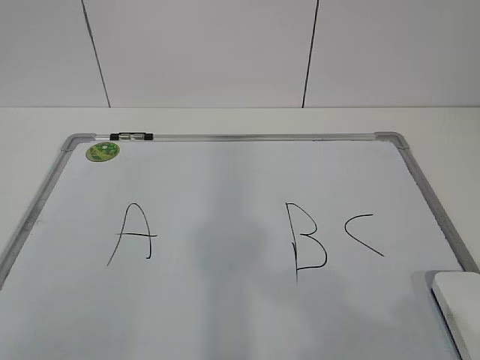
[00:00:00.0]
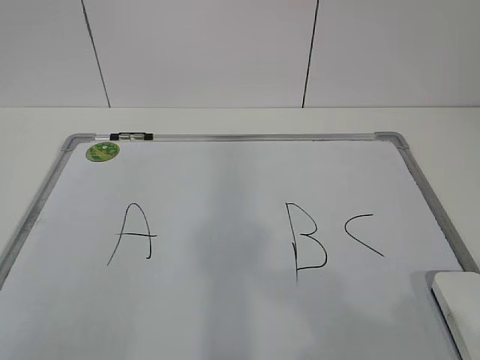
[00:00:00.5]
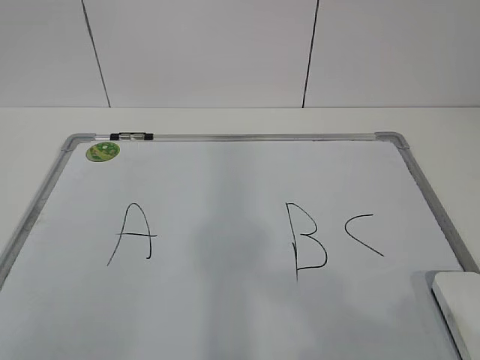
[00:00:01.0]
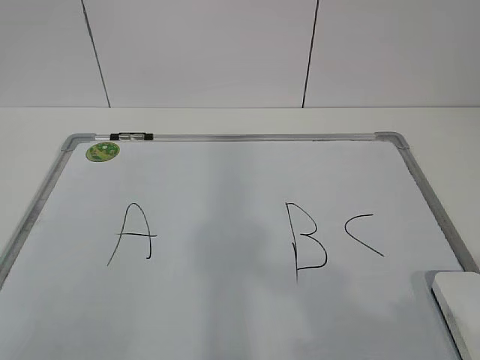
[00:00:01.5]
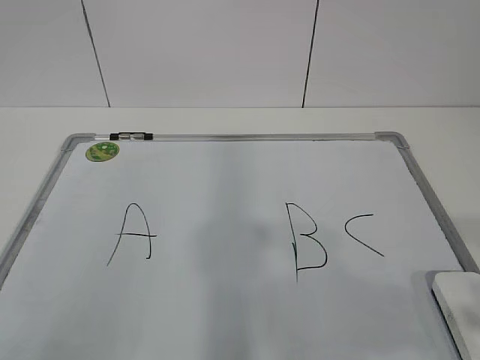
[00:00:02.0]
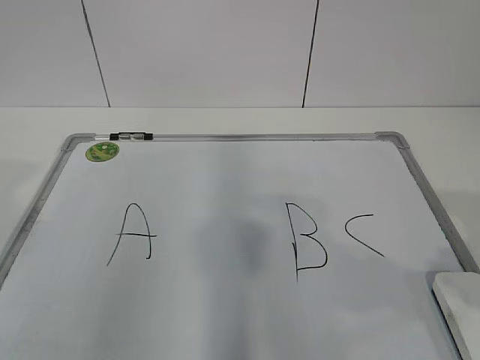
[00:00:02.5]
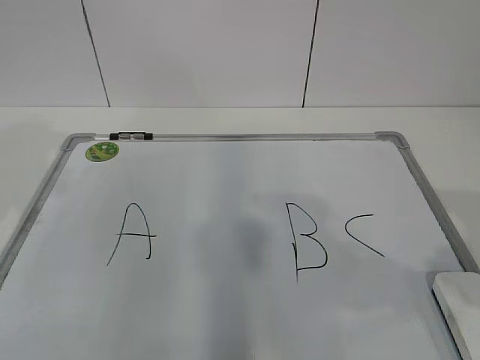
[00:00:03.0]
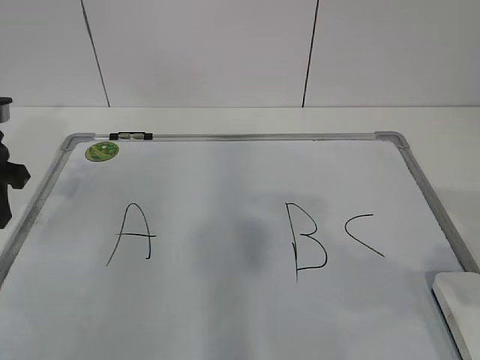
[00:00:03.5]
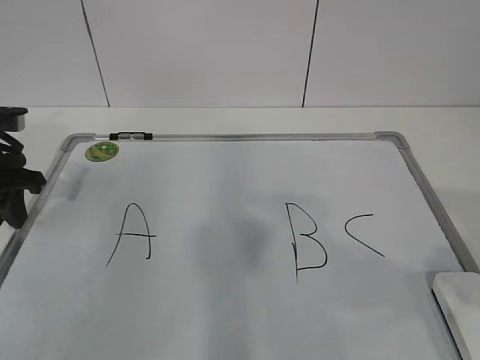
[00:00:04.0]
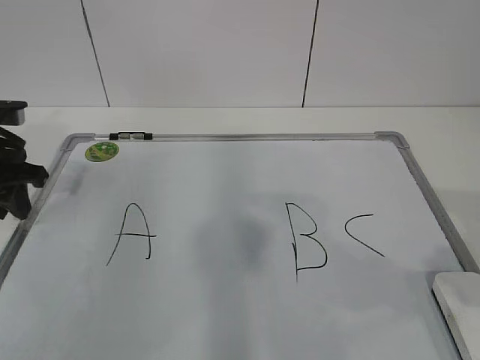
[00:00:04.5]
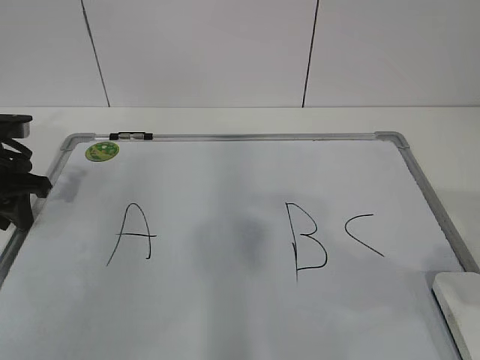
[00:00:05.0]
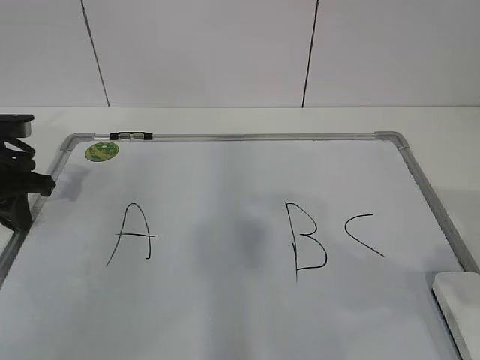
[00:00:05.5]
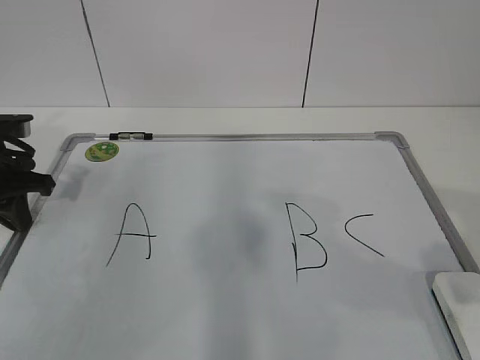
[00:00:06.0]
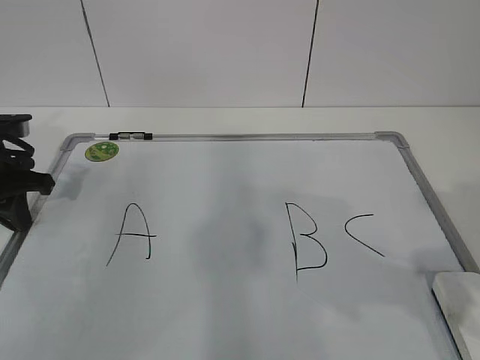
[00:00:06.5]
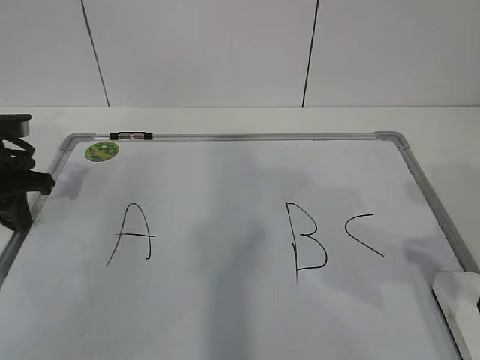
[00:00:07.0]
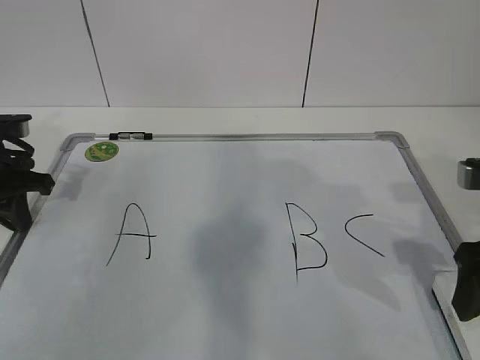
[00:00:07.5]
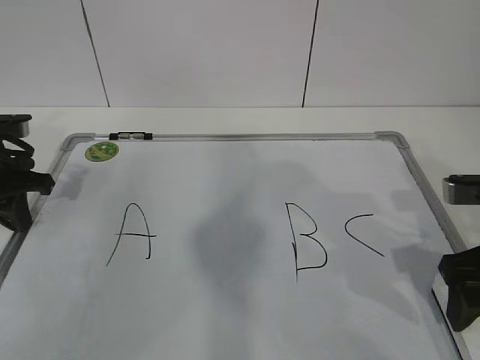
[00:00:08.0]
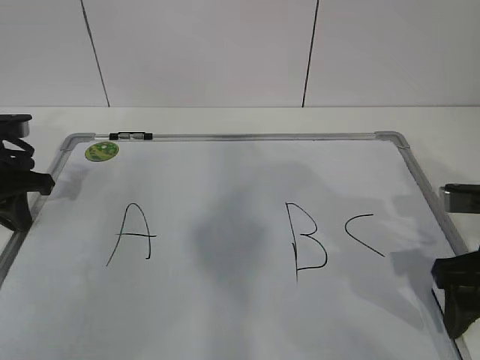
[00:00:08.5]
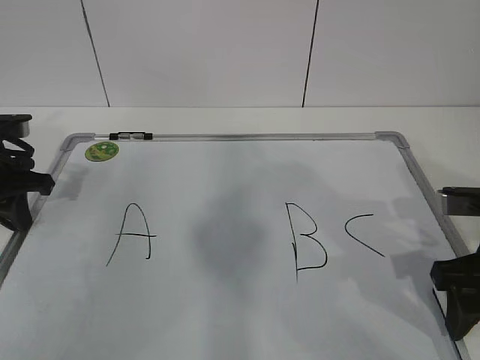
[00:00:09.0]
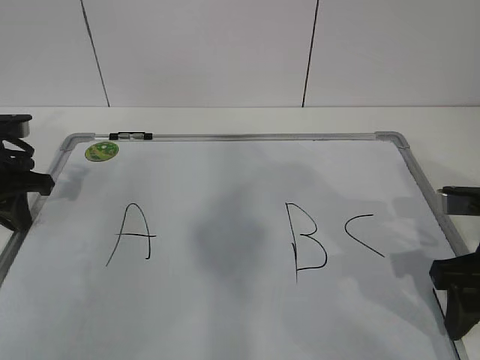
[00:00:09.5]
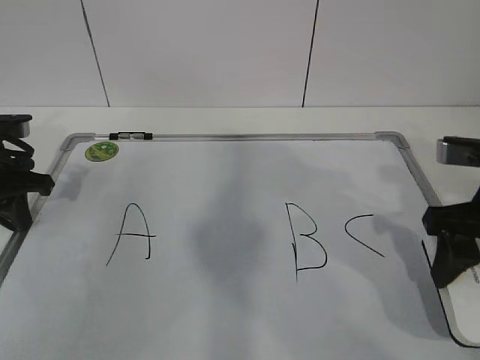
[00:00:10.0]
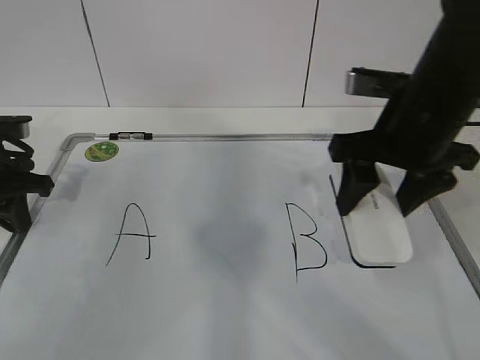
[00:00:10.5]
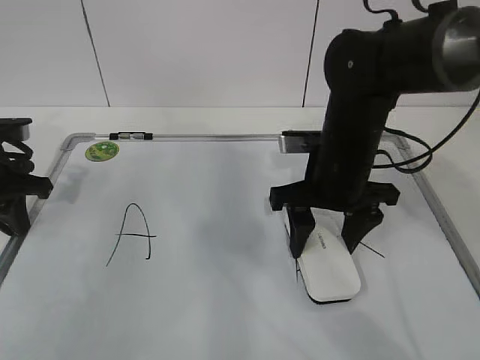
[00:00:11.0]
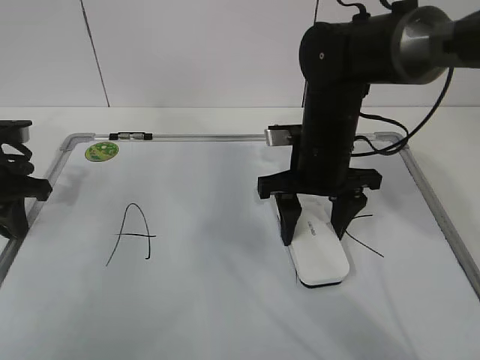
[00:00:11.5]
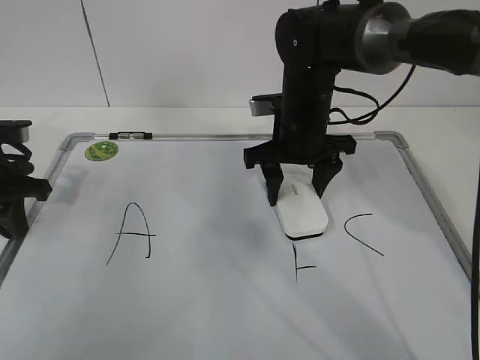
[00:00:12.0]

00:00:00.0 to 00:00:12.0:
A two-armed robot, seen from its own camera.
Task of the whole recording: pick up the eraser on the blackboard and erase the letter "B".
Step, 00:00:00.0 to 00:00:04.0: Hold the drawing board steady with your left hand.
Step, 00:00:04.5 to 00:00:07.5: Grab the eraser with your right hand.
00:00:02.0 to 00:00:04.0: The left gripper goes about 30 cm forward.
00:00:04.0 to 00:00:06.0: The left gripper closes.
00:00:06.0 to 00:00:08.0: The right gripper goes about 15 cm forward and downward, and opens up.
00:00:08.0 to 00:00:10.0: The right gripper closes.
00:00:10.0 to 00:00:12.0: The right gripper is displaced forward and to the left by roughly 20 cm.

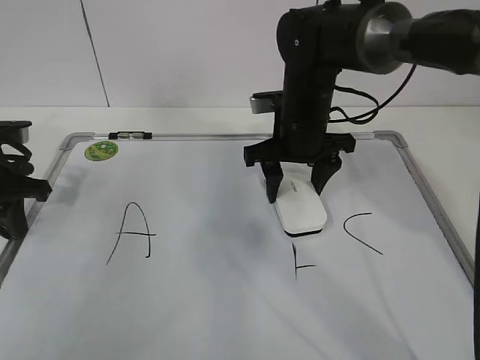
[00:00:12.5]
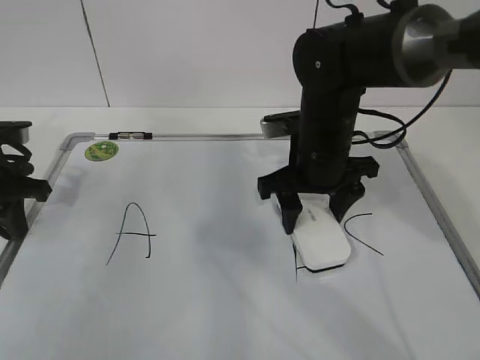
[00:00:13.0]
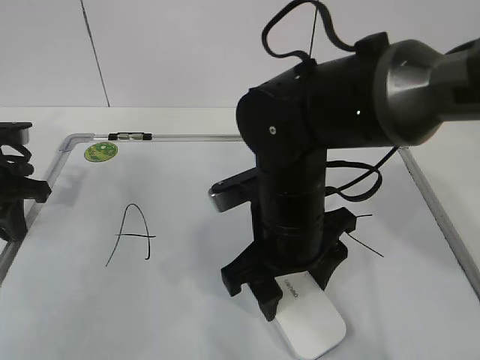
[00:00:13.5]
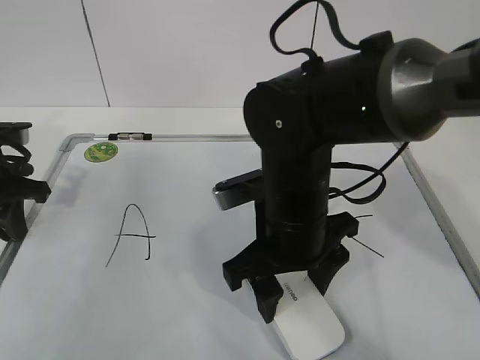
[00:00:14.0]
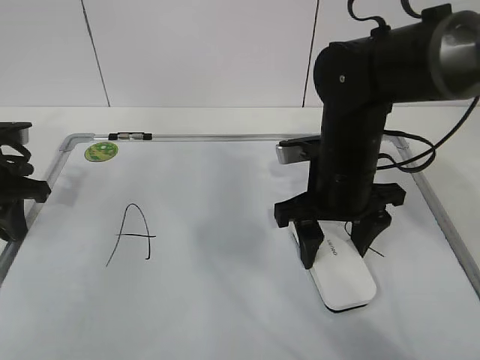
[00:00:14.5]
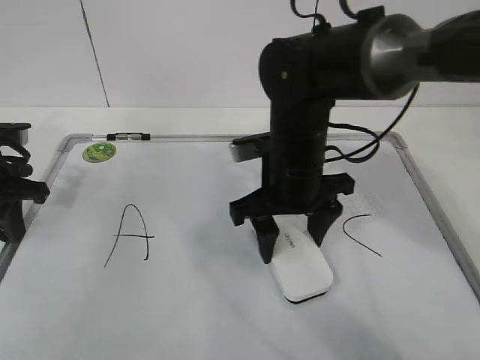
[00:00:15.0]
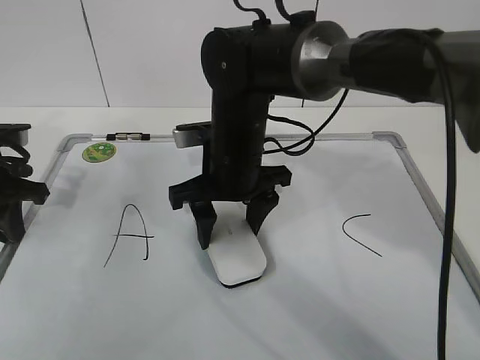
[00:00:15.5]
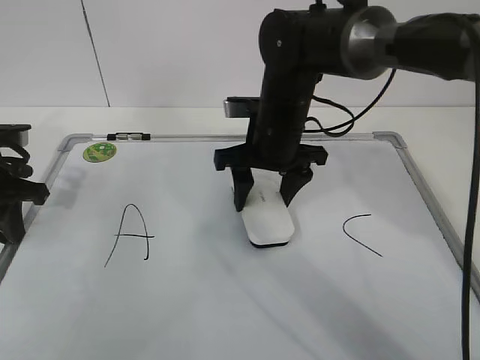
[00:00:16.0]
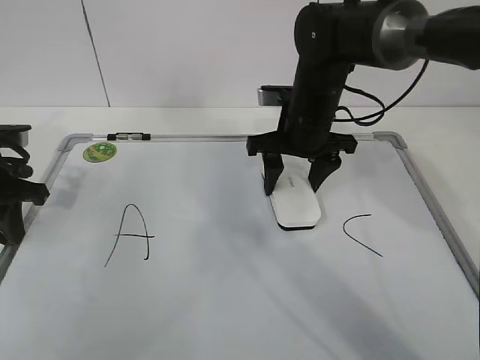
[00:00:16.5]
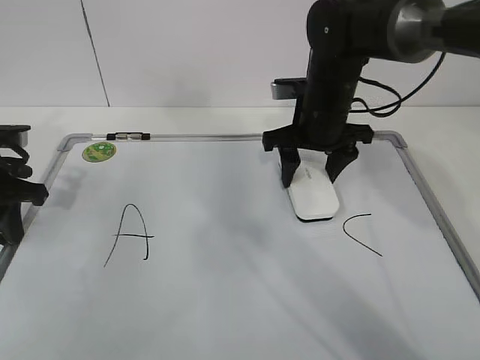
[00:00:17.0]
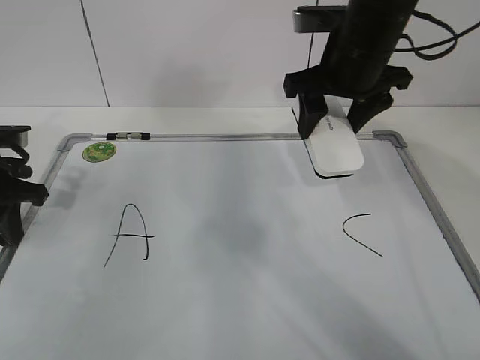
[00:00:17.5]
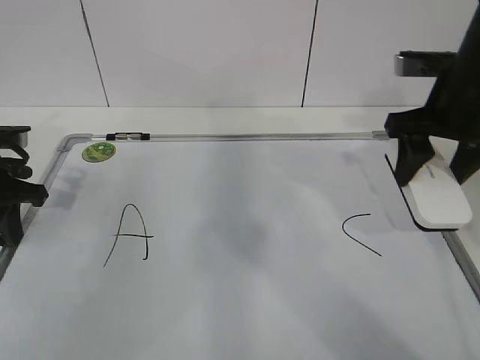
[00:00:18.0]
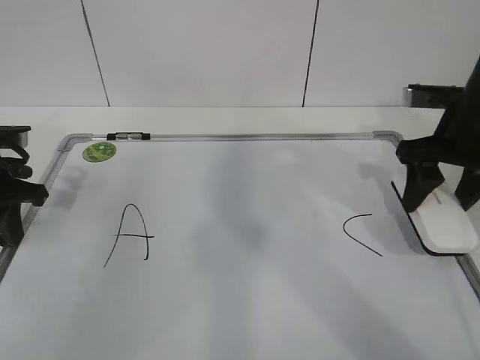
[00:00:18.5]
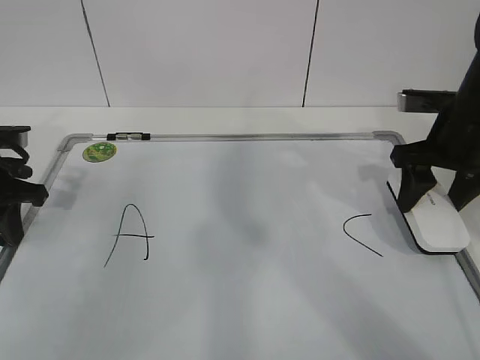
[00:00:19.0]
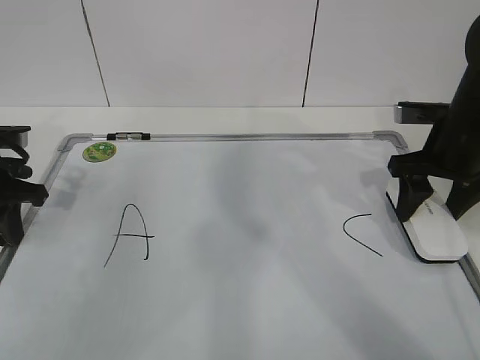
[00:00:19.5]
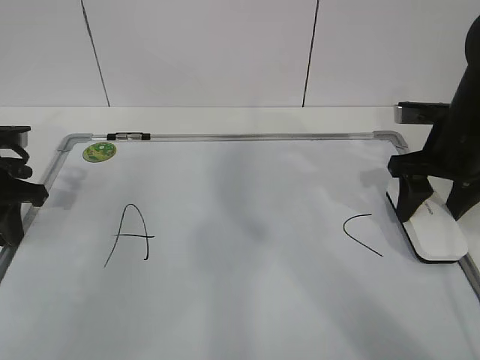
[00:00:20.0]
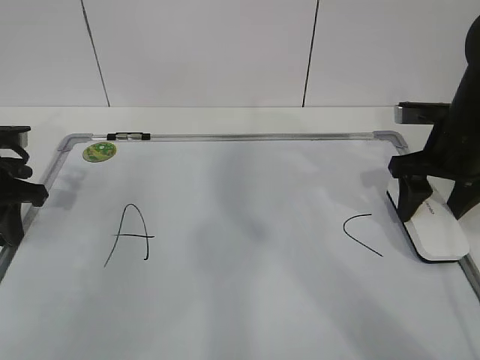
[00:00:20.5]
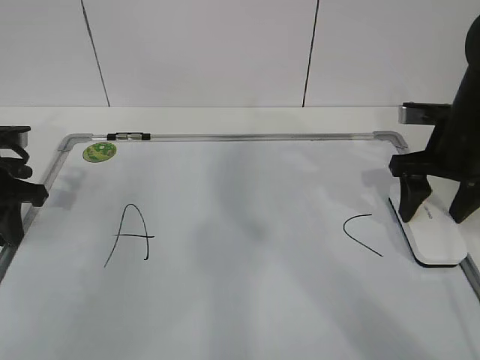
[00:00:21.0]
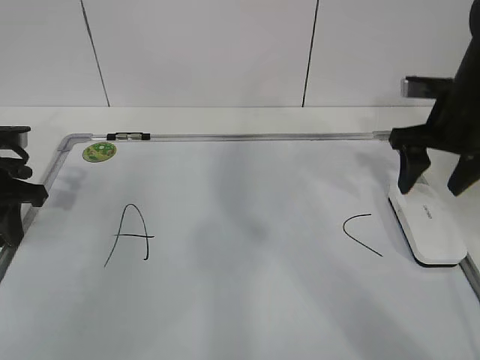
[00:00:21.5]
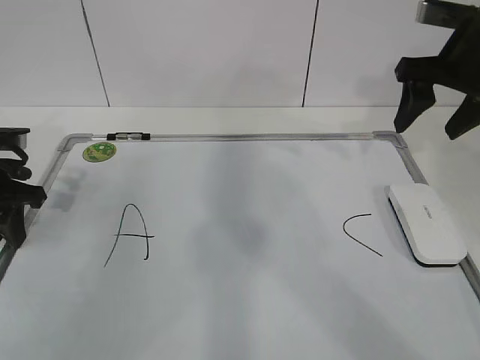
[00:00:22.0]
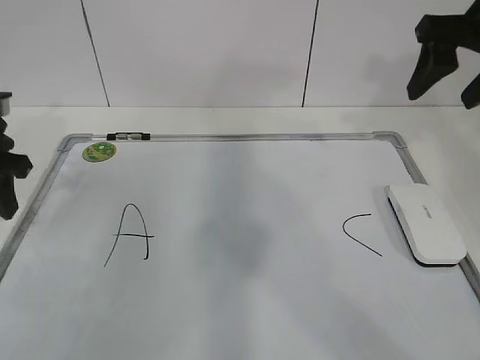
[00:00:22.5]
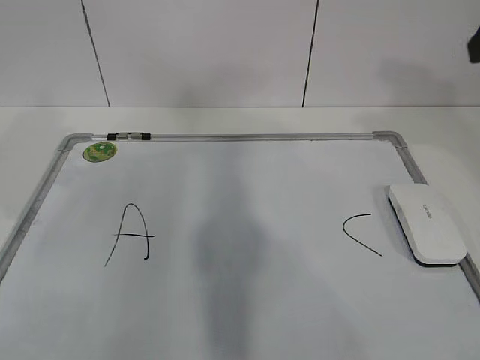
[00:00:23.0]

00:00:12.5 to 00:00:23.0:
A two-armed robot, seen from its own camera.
Task of the whole recording: pick up the eraser on the blackboard and erase the letter "B".
Step, 00:00:14.5 to 00:00:17.0: Put down the eraser with your right hand.
00:00:12.5 to 00:00:14.5: The right gripper travels backward by approximately 10 cm.
00:00:14.5 to 00:00:16.5: The right gripper moves forward, about 10 cm, and travels to the left and back again, roughly 10 cm each way.
00:00:16.5 to 00:00:19.0: The right gripper travels to the right by some 15 cm.
00:00:19.0 to 00:00:21.0: The right gripper opens.
00:00:21.0 to 00:00:23.0: The right gripper shifts roughly 25 cm upward and backward. Meanwhile the left gripper goes some 10 cm upward, and opens and closes again.

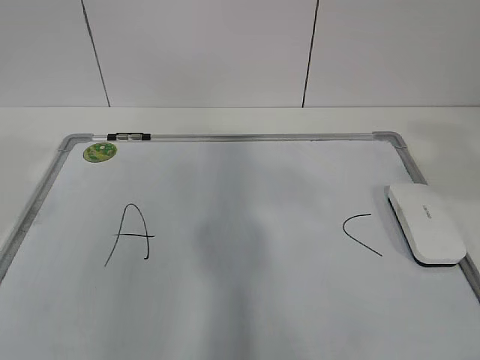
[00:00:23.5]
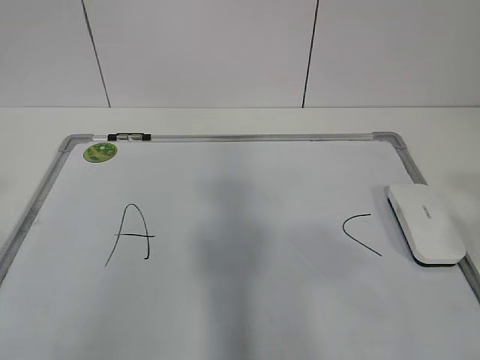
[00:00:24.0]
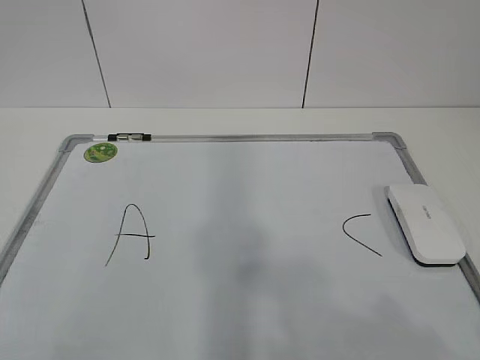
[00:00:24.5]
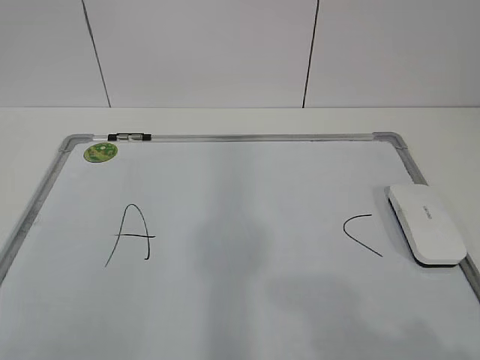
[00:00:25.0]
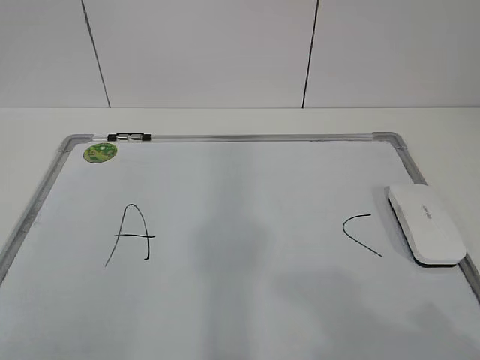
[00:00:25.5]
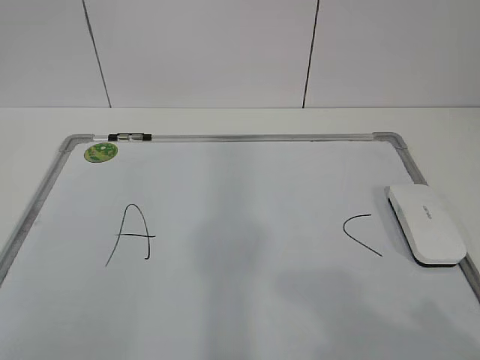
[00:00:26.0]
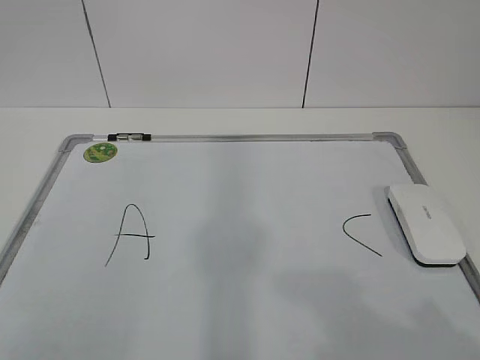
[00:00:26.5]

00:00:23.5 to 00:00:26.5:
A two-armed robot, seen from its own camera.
Task of the whole recording: pick up the eraser on the blackboard and erase the letter "B".
00:00:23.5 to 00:00:25.0: The right gripper heads backward and downward, covering about 20 cm. The left gripper goes about 20 cm backward, and opens.
